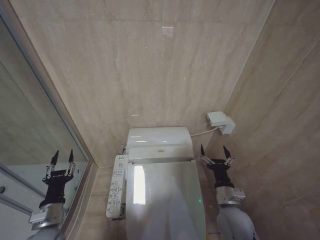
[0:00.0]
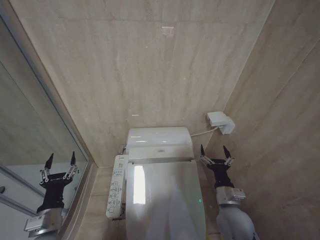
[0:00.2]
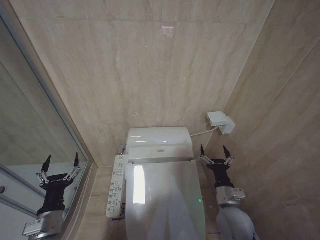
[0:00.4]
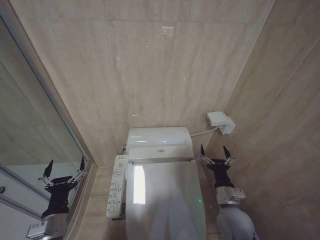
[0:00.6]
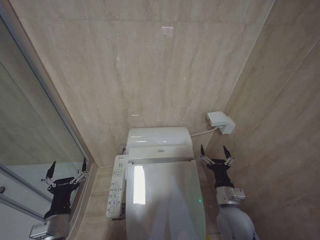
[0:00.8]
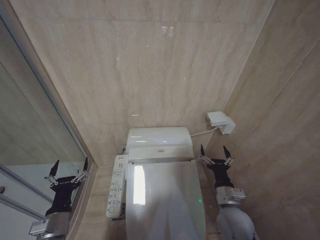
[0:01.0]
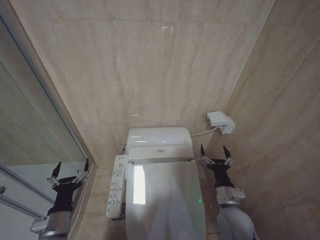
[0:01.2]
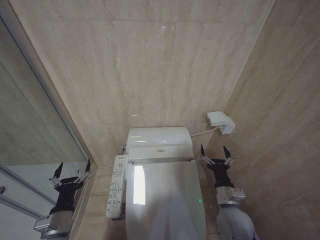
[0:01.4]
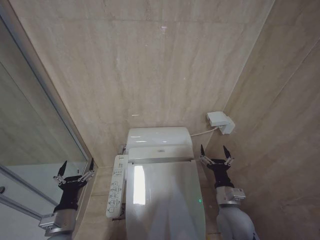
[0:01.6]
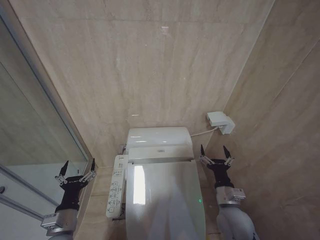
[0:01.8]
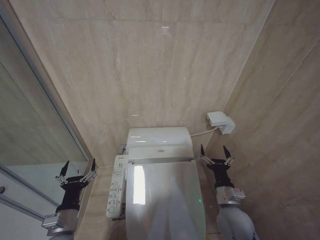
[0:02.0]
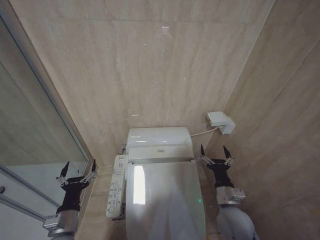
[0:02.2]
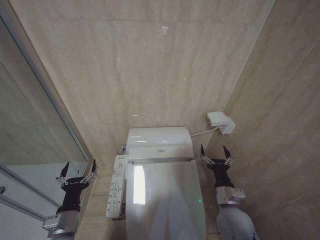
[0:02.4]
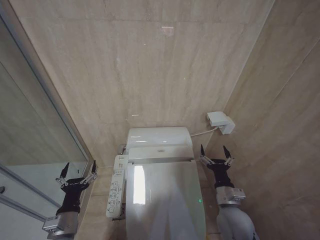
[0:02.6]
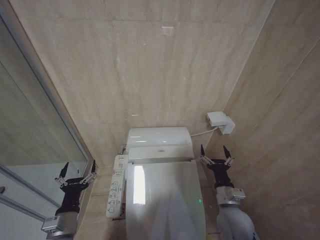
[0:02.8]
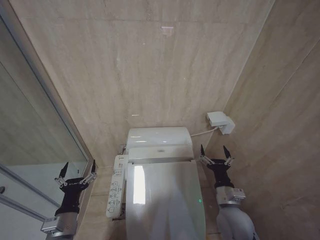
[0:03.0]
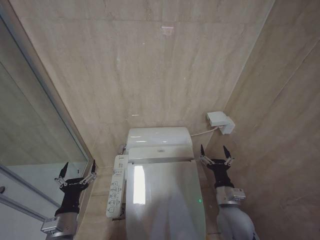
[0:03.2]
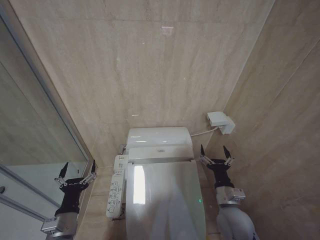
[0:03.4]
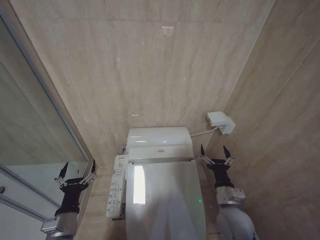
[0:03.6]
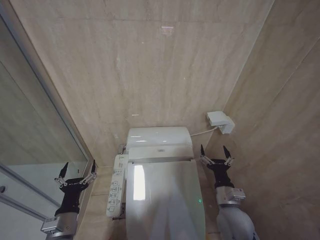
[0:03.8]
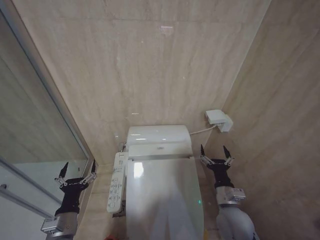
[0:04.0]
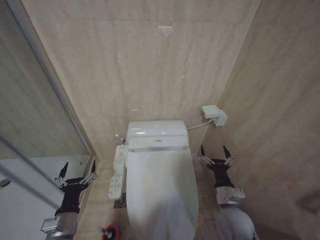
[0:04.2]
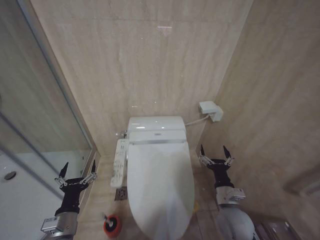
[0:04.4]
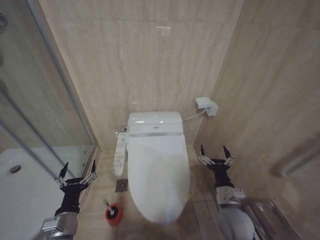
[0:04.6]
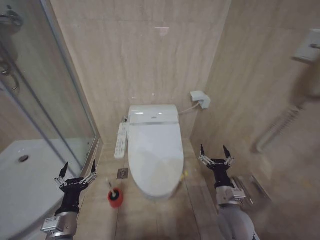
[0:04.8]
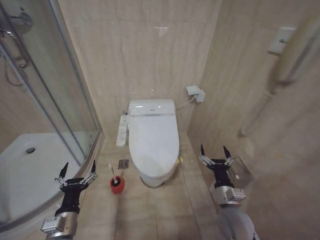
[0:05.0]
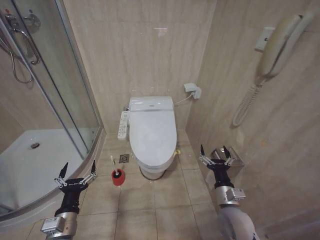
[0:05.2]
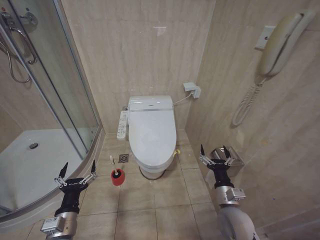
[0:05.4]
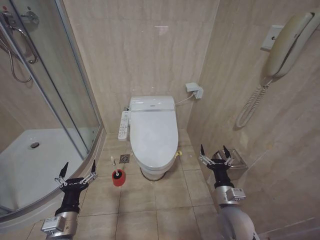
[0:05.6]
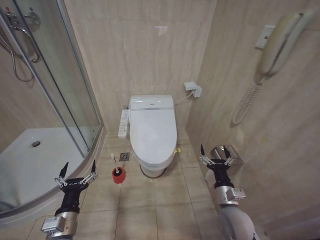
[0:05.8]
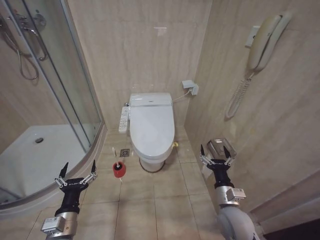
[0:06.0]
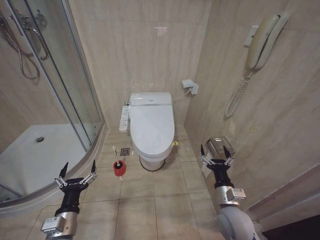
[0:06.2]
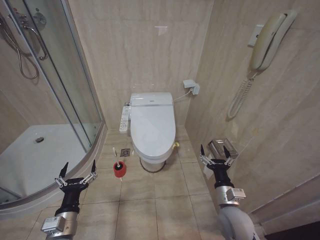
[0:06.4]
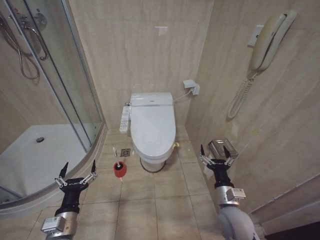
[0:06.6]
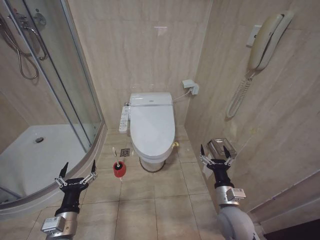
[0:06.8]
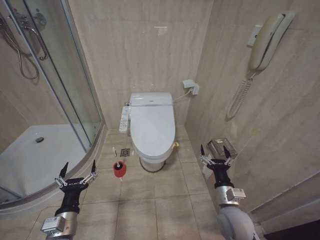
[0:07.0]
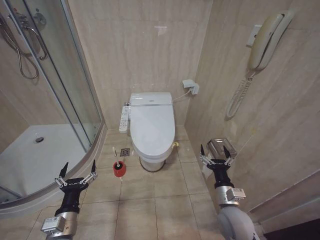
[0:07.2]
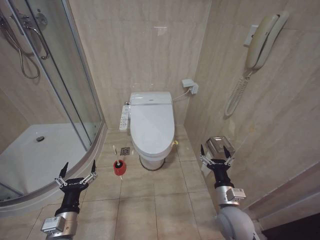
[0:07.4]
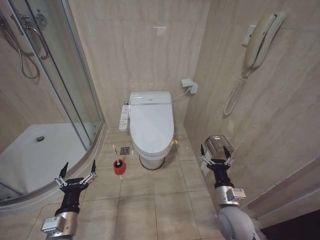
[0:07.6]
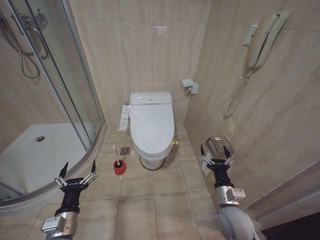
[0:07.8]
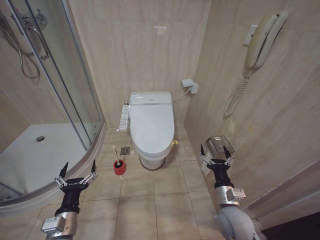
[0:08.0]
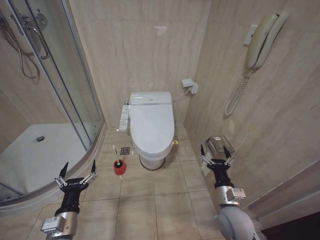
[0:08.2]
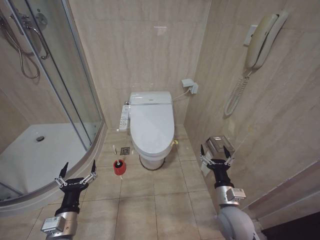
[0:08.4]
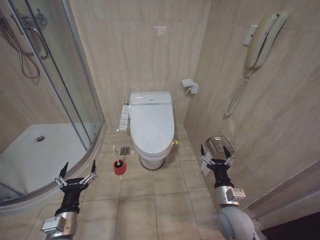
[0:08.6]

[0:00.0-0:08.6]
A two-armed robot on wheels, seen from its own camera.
Task of the whole recording: Open the toilet lid, clean the toilet bowl with a toilet brush, close the toilet lid, and flush.
0:00.0 to 0:01.4: The left gripper opens.
0:01.4 to 0:02.8: The grippers move only a little.
0:02.8 to 0:04.4: Both grippers stay put.
0:05.8 to 0:08.6: Both grippers stay put.

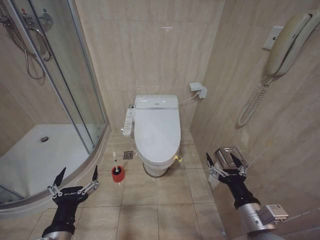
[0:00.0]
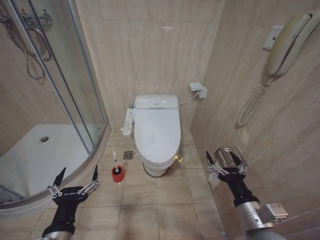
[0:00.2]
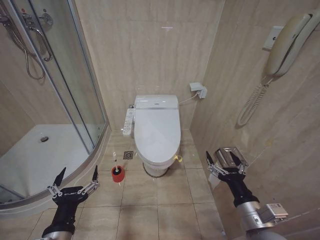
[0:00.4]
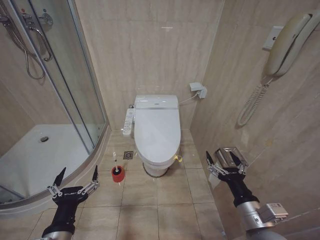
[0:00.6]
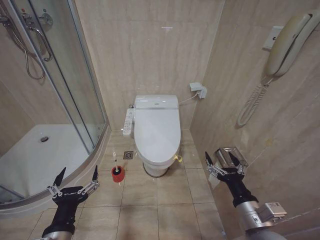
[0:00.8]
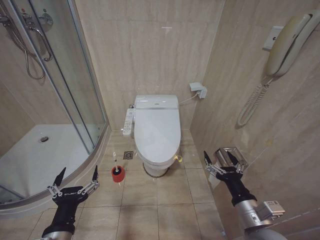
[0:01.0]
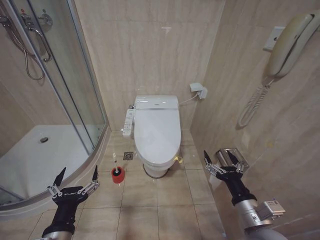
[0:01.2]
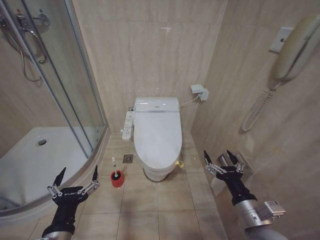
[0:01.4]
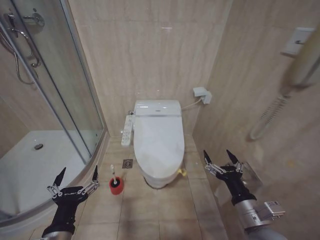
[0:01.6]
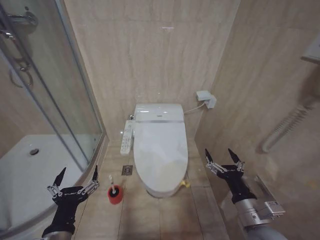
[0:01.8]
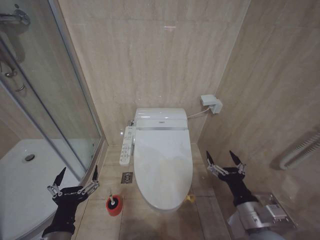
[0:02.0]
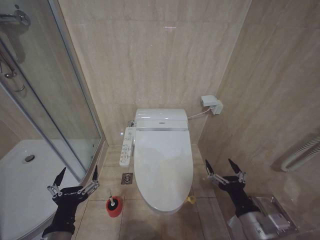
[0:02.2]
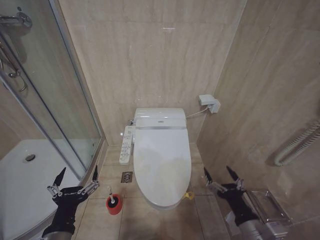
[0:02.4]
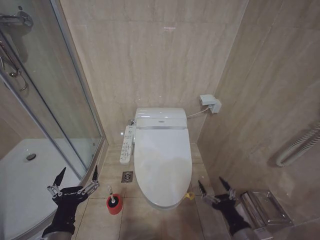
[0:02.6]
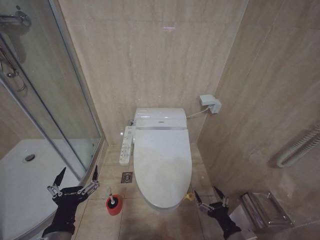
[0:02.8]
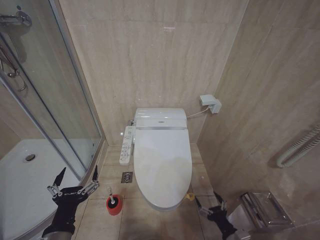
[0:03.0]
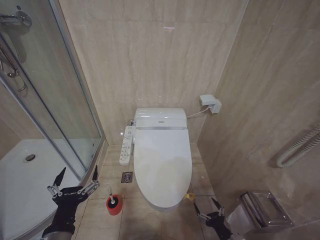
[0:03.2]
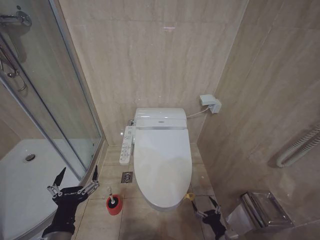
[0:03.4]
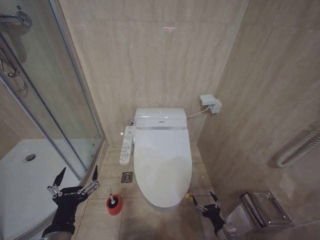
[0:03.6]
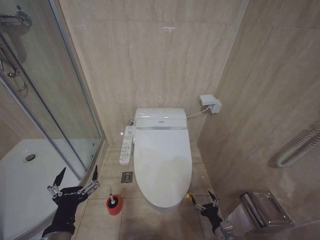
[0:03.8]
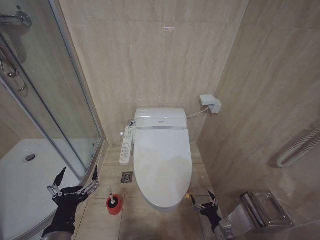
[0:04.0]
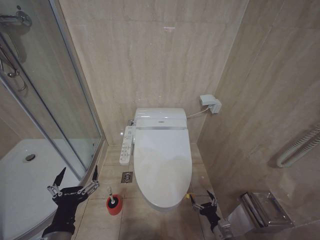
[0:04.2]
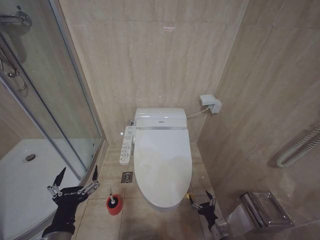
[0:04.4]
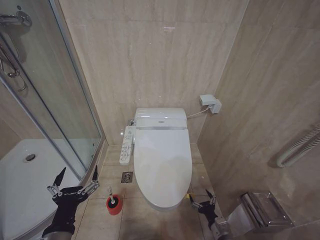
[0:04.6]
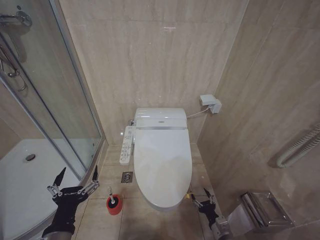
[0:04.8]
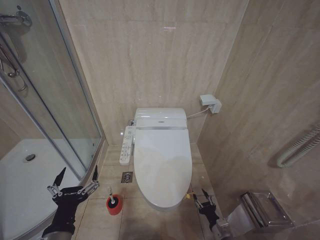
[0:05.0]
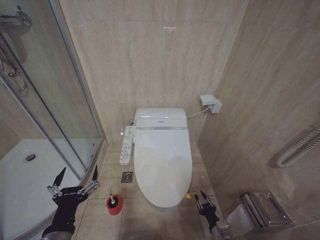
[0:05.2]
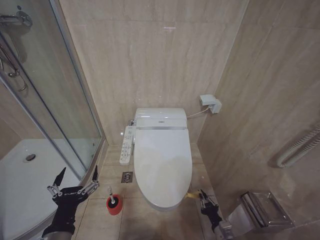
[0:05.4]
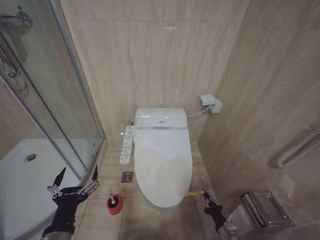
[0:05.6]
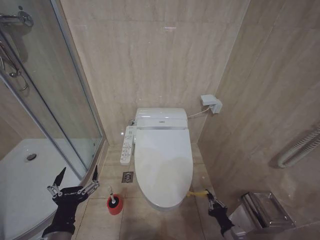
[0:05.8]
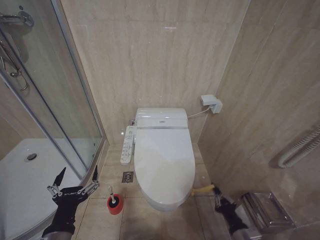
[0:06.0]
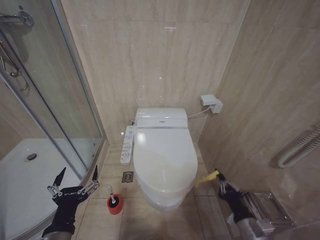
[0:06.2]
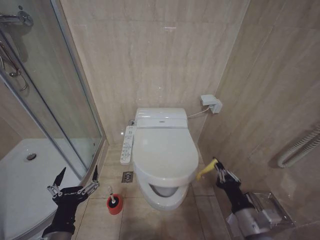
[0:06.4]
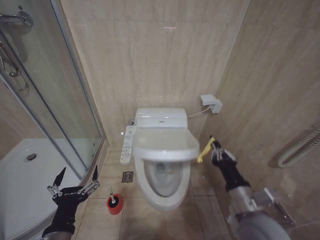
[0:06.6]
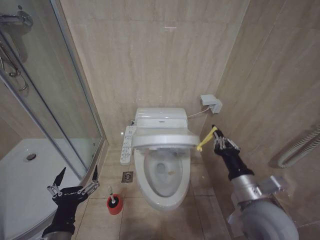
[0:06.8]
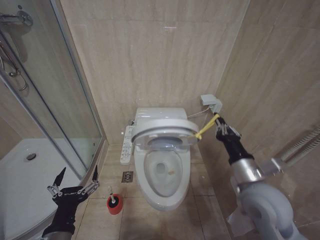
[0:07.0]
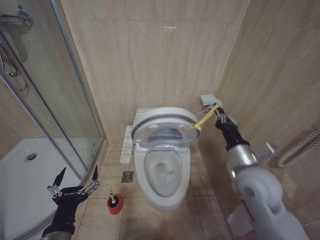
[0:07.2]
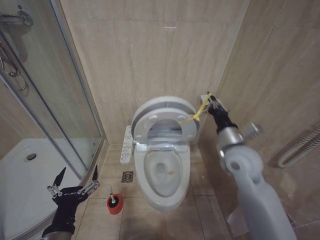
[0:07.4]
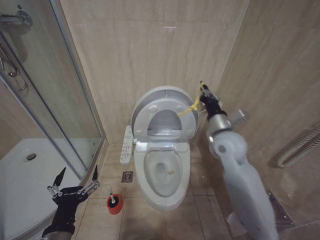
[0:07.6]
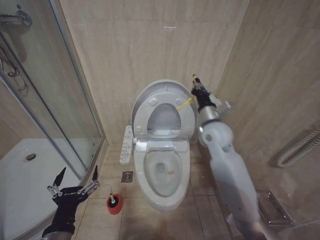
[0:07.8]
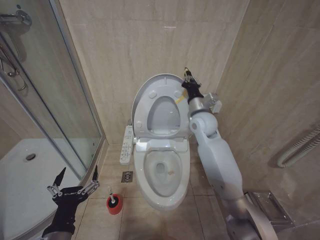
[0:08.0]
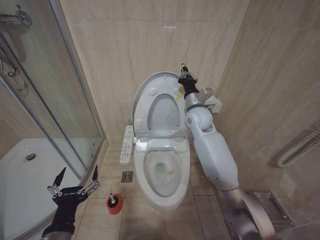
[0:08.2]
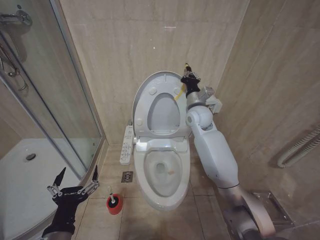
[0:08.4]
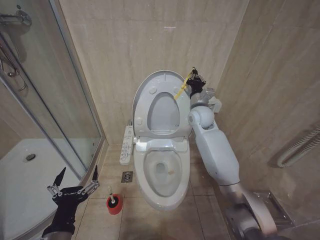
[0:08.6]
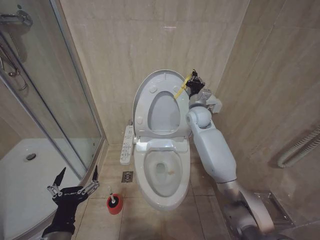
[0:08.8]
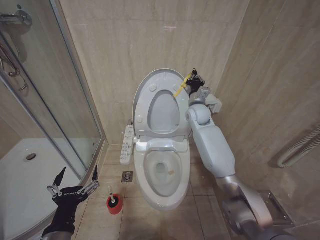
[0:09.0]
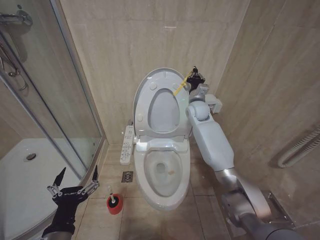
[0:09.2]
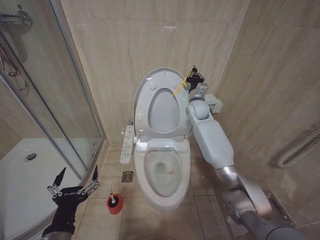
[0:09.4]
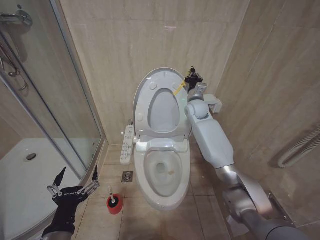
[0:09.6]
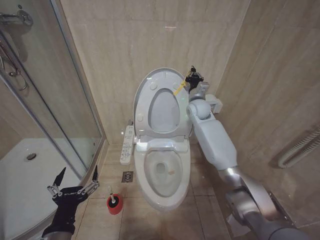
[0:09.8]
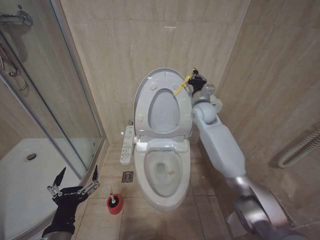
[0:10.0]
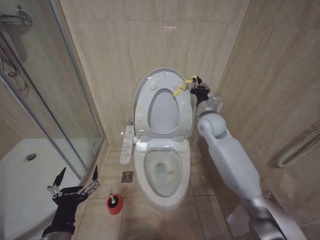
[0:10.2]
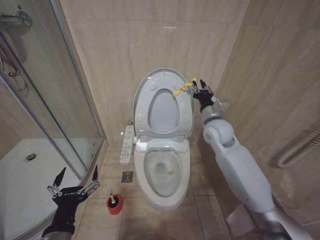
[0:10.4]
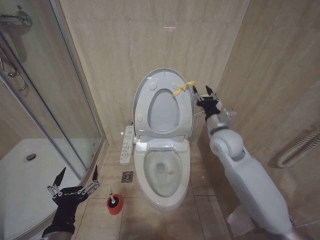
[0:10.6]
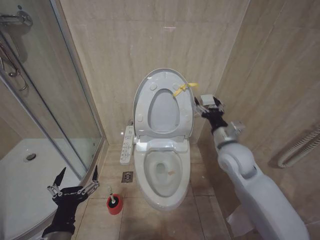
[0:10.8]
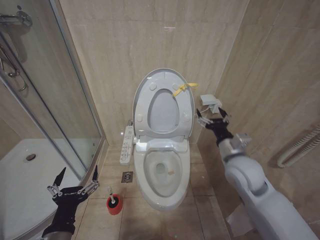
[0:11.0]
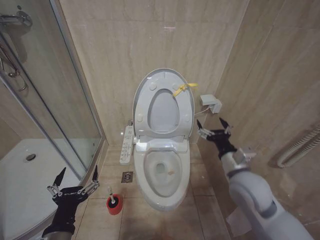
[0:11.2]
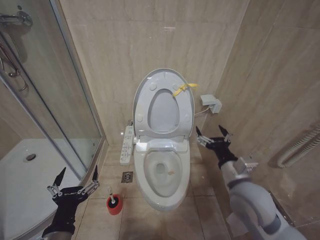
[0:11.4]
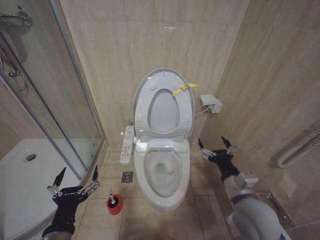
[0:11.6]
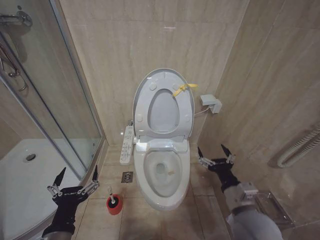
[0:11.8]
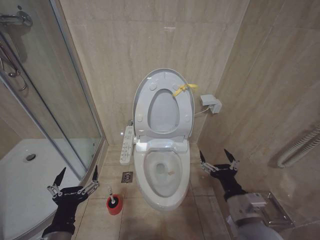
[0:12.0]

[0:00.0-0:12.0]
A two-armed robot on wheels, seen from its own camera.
Task of the whole recording: Open the toilet lid, clean the toilet bowl with a toilet brush, close the toilet lid, and flush.
0:01.6 to 0:03.0: The right gripper travels downward by about 15 cm.
0:03.0 to 0:04.4: The right gripper shifts roughly 10 cm downward and forward.
0:04.4 to 0:06.0: The right gripper moves upward, about 5 cm, and closes.
0:06.0 to 0:07.6: The right gripper travels upward and forward by about 40 cm.
0:07.6 to 0:09.0: The right gripper moves forward, roughly 20 cm.
0:09.0 to 0:10.4: The right gripper goes approximately 10 cm backward.
0:10.4 to 0:12.0: The right gripper heads backward and downward, covering about 30 cm, and opens its fingers.

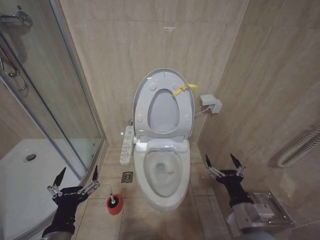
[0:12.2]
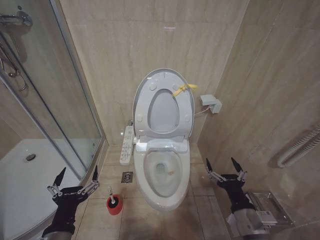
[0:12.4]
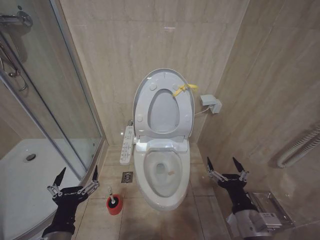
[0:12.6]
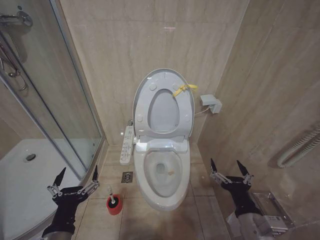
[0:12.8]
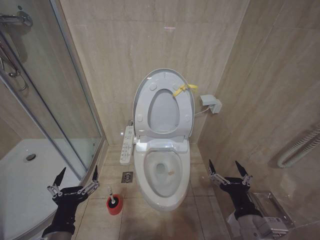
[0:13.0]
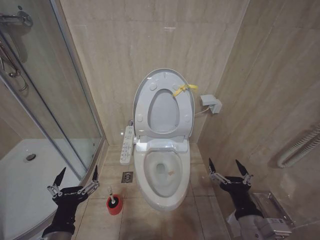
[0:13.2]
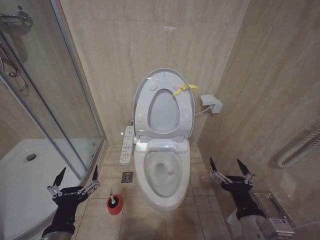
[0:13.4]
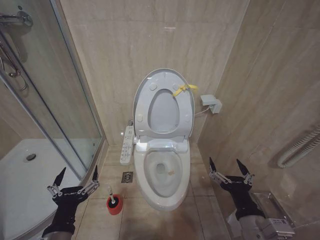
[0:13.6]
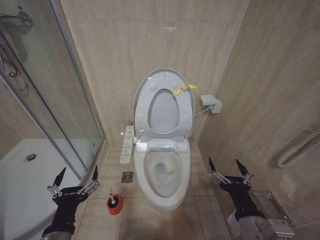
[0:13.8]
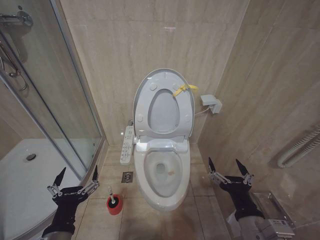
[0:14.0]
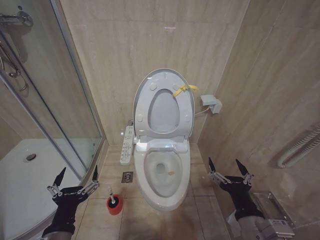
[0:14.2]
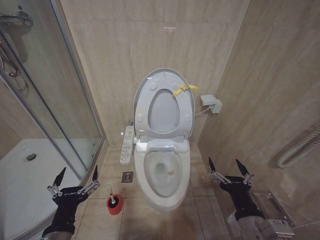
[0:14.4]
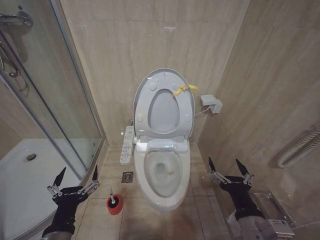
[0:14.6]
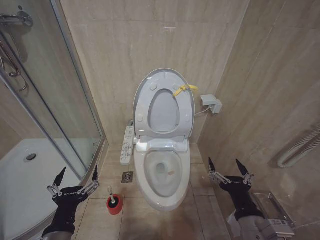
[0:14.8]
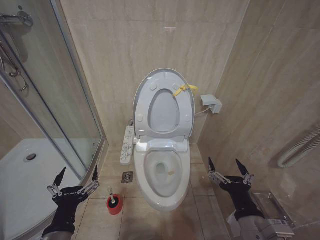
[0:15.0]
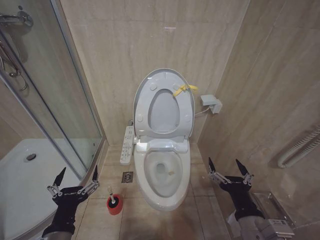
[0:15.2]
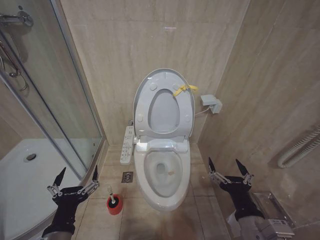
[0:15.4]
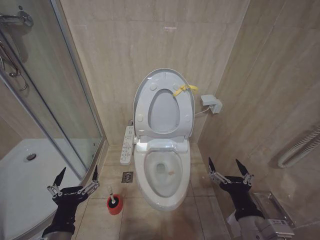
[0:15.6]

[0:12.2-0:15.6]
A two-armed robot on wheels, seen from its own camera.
Task of the whole recording: Open the toilet lid, clean the toilet bowl with a toilet brush, close the toilet lid, and flush.
0:12.2 to 0:13.8: The right gripper moves roughly 5 cm.
0:13.8 to 0:15.6: Both grippers stay about where they are.
